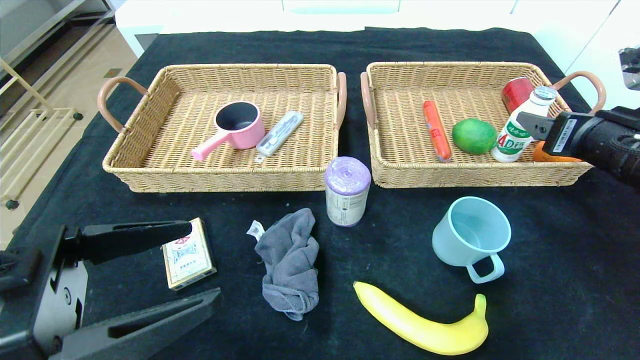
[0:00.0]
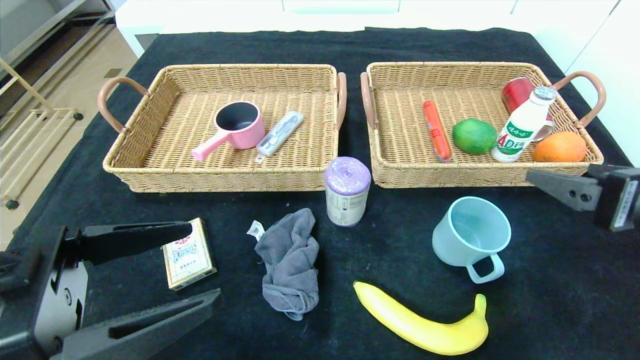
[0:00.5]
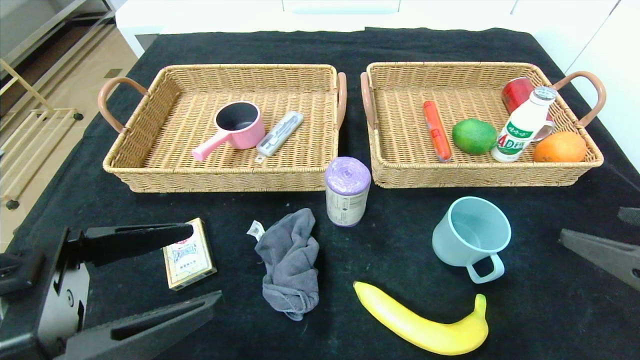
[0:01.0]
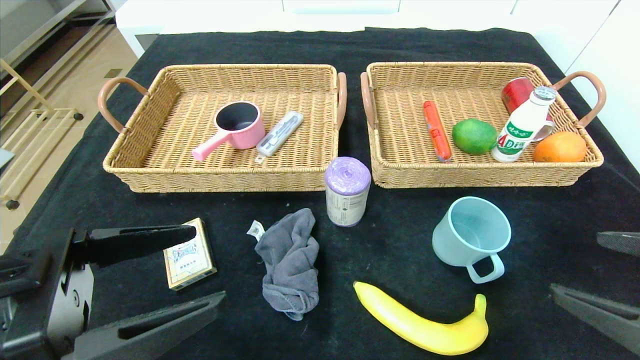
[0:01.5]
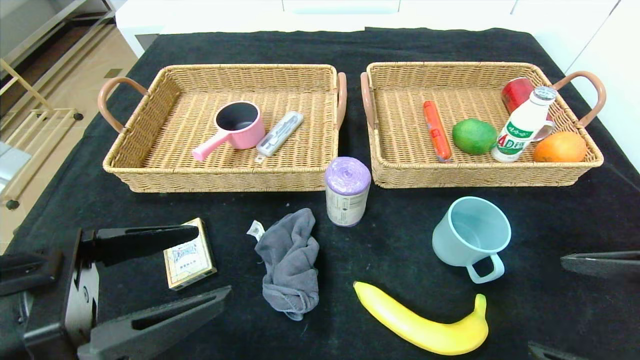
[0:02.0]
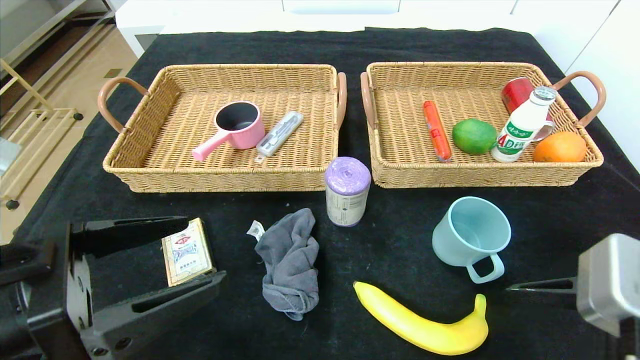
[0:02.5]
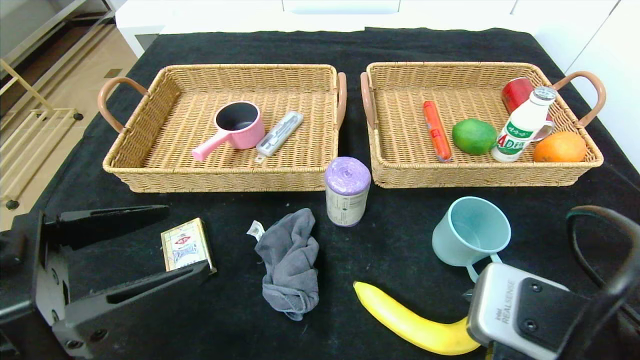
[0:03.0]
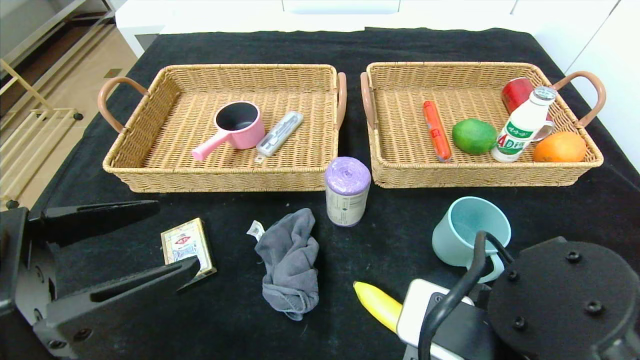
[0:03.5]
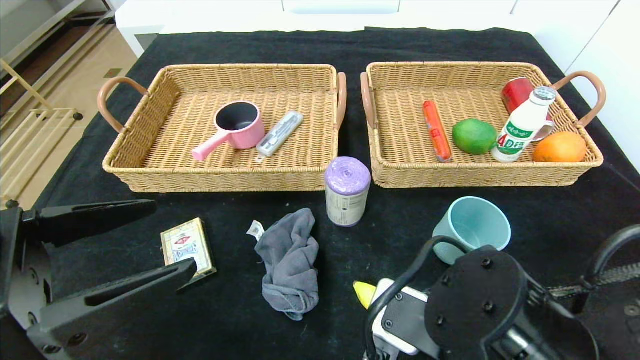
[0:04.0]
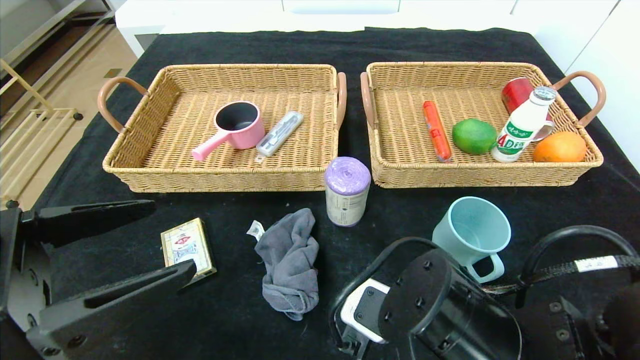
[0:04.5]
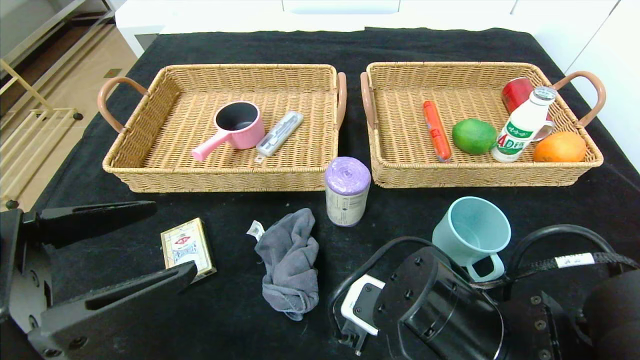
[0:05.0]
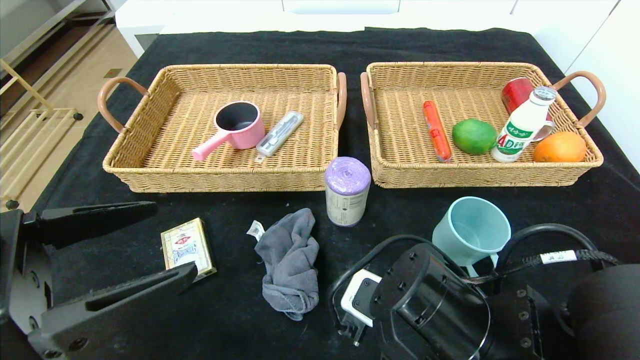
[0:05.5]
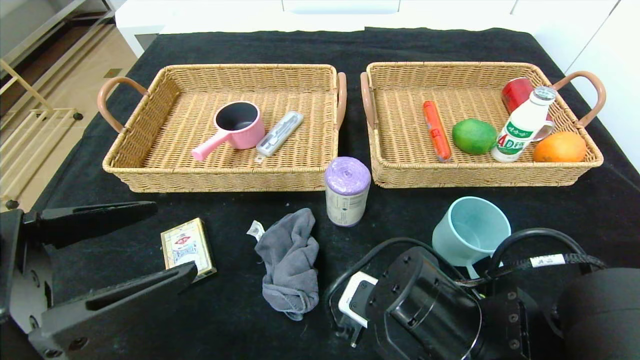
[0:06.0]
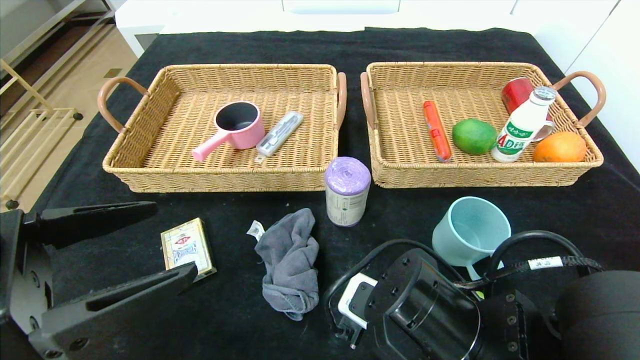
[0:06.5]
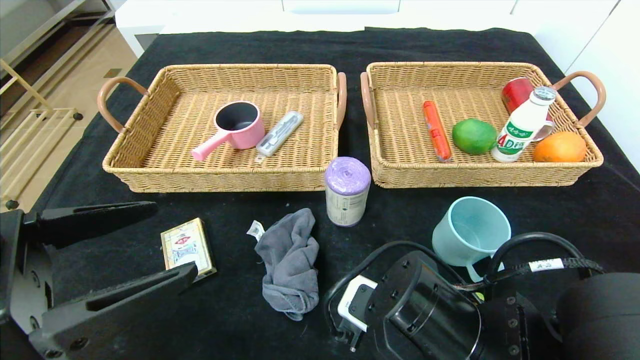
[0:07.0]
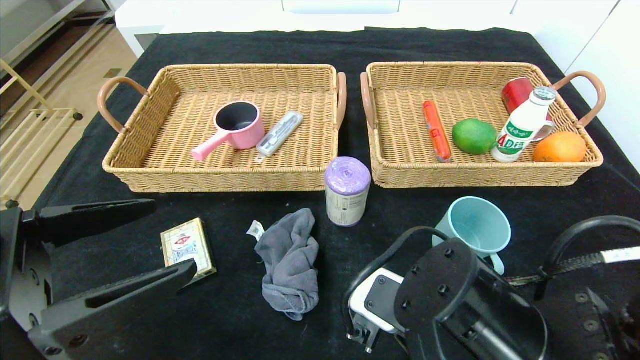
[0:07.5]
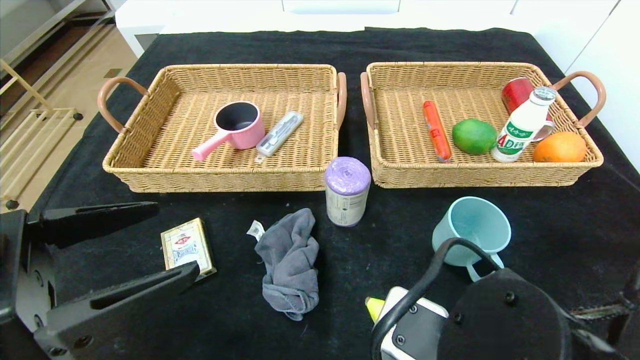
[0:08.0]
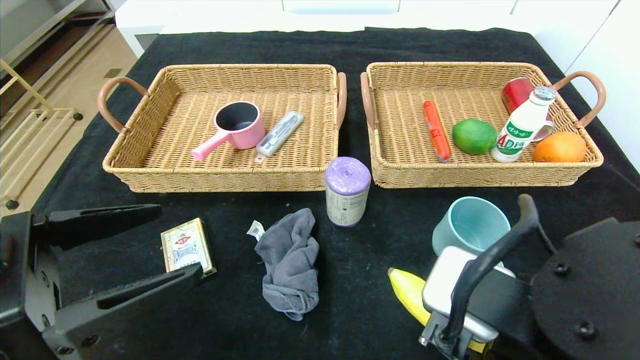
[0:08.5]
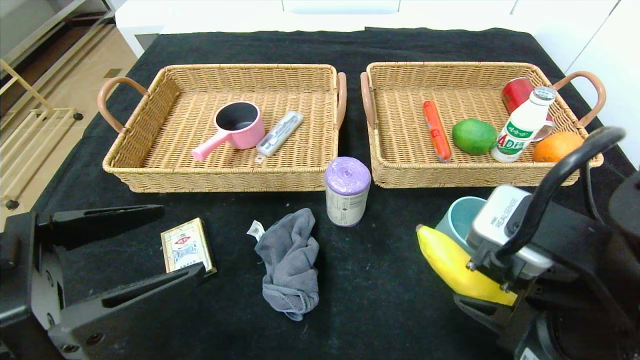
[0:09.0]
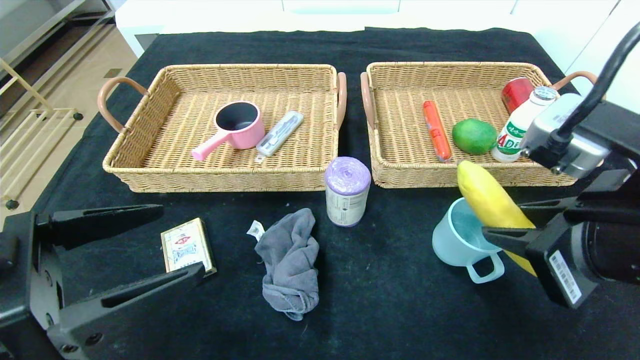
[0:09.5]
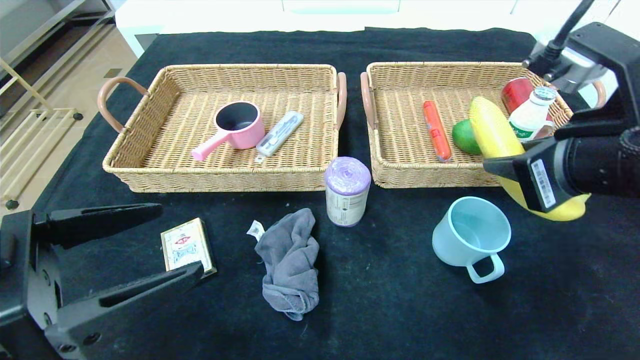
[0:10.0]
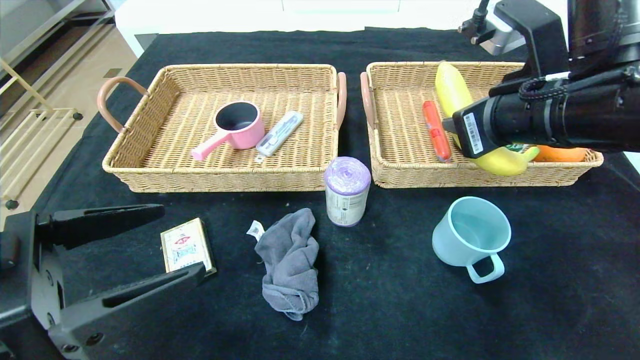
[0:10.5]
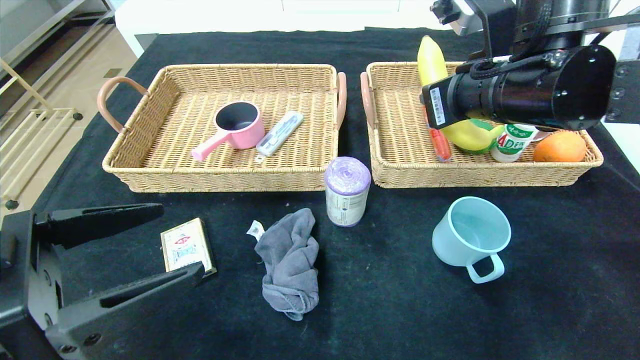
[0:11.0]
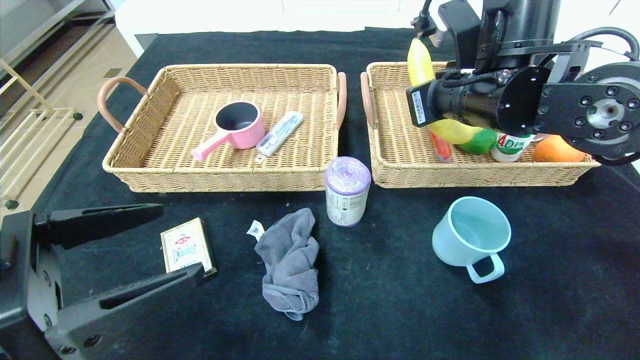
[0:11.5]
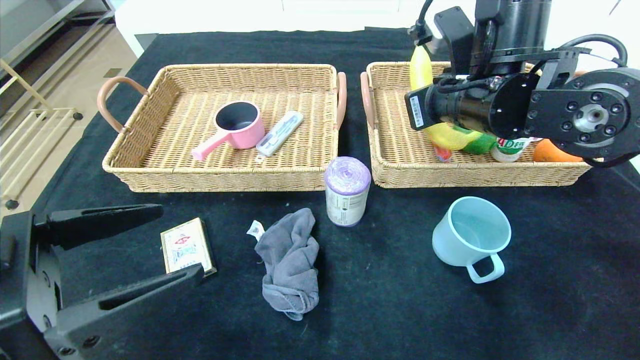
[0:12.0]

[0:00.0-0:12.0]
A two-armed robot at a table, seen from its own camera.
0:00.0 to 0:02.0: The right gripper is displaced backward by about 20 cm.
0:02.0 to 0:04.0: The right gripper travels to the left and downward by roughly 15 cm.
0:04.0 to 0:06.0: The grippers stay close to where they were, moving slightly.
0:06.0 to 0:08.0: The right gripper moves backward, some 5 cm, and closes up.
0:08.0 to 0:10.0: The right gripper goes approximately 15 cm upward, to the right and forward.
0:10.0 to 0:12.0: The right gripper heads forward and to the left, covering about 15 cm.

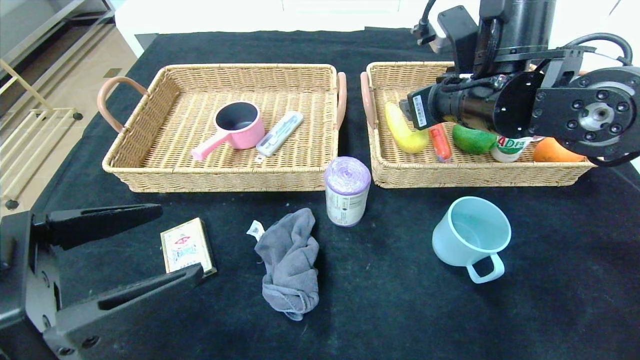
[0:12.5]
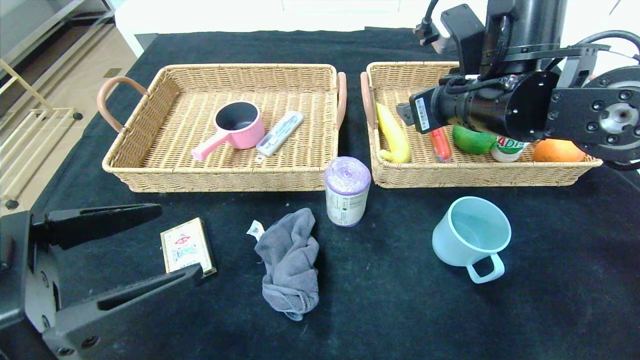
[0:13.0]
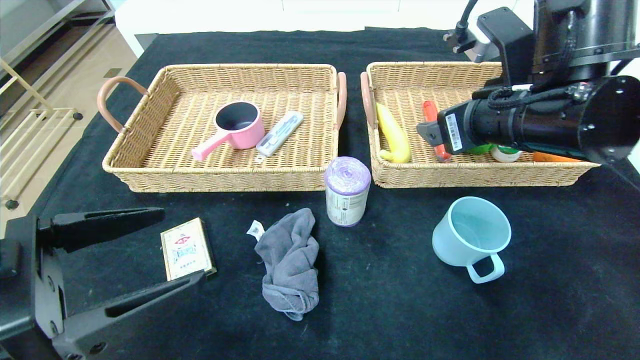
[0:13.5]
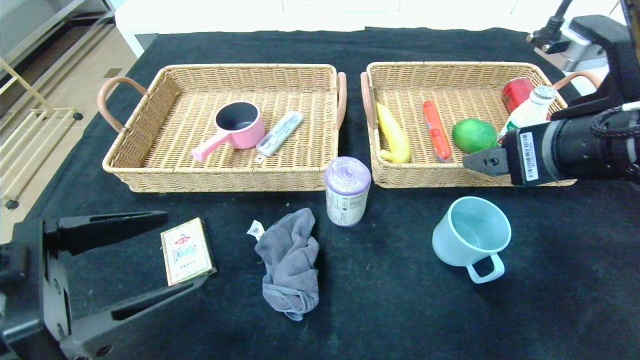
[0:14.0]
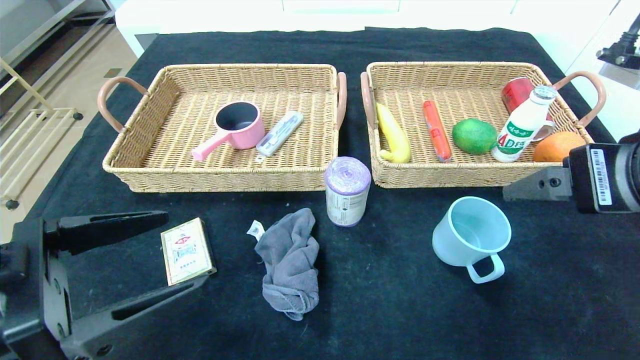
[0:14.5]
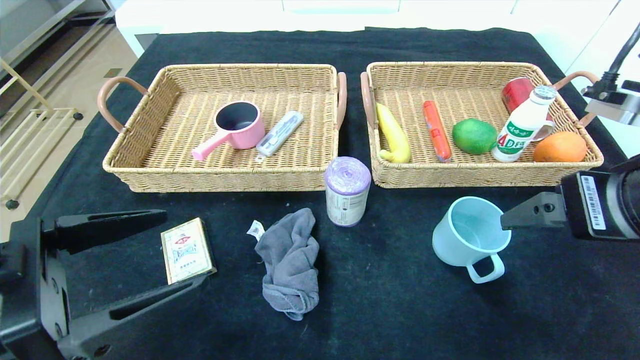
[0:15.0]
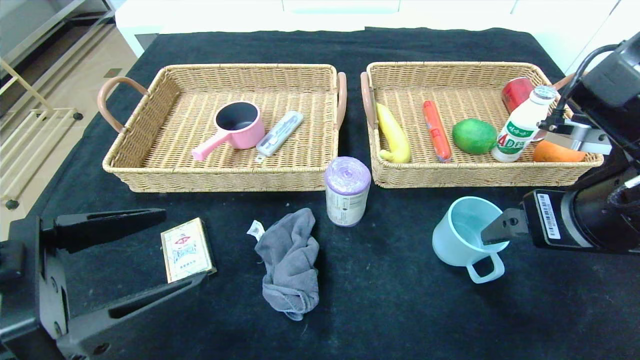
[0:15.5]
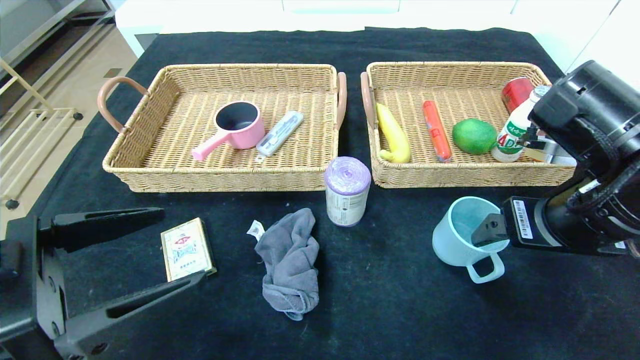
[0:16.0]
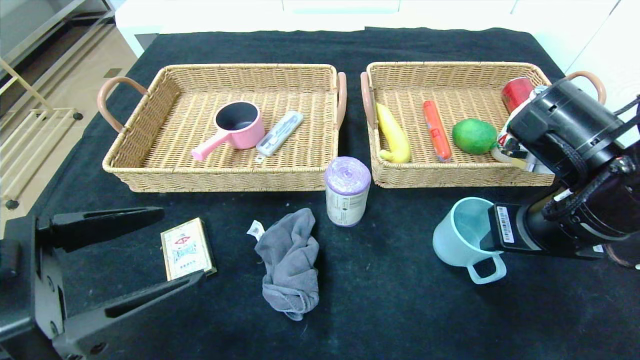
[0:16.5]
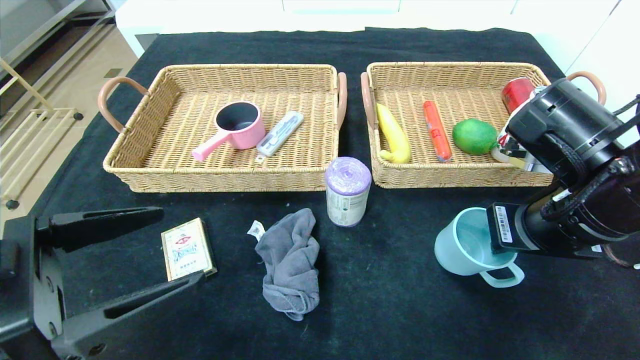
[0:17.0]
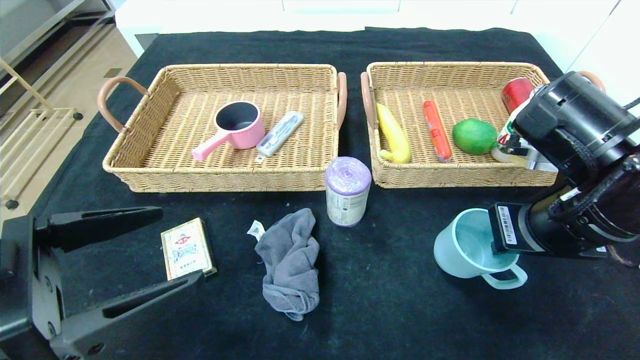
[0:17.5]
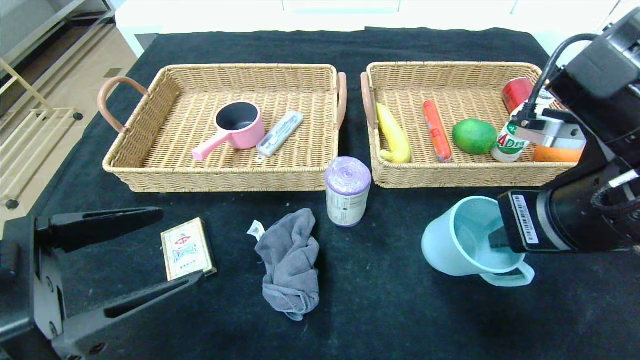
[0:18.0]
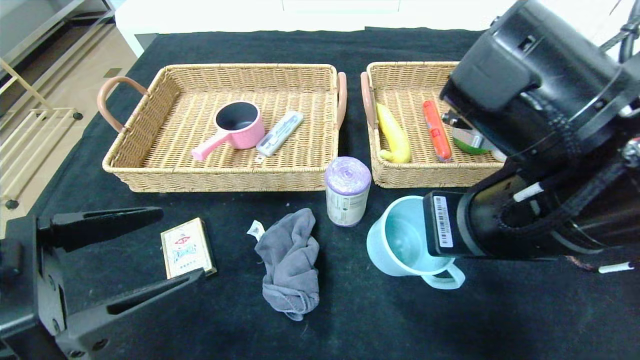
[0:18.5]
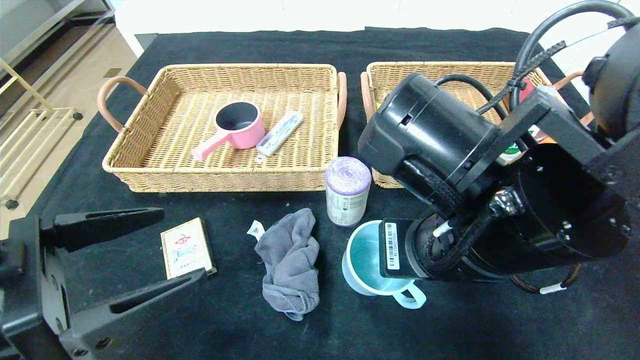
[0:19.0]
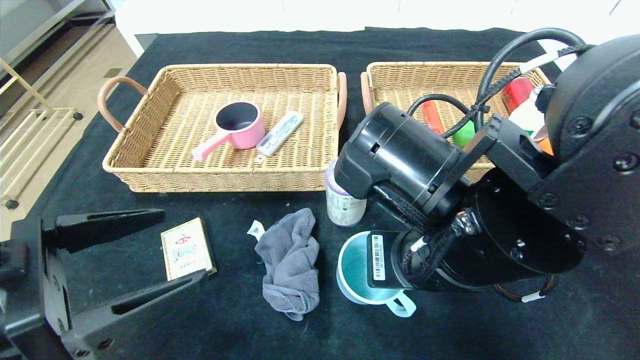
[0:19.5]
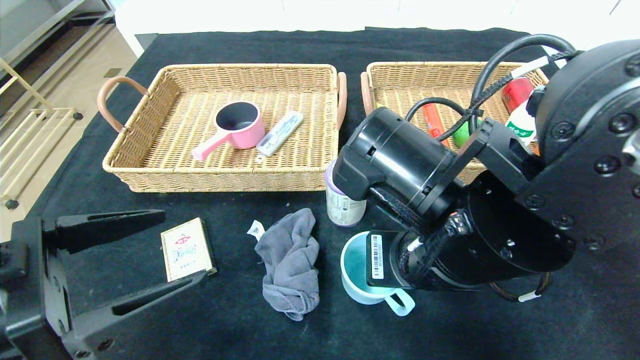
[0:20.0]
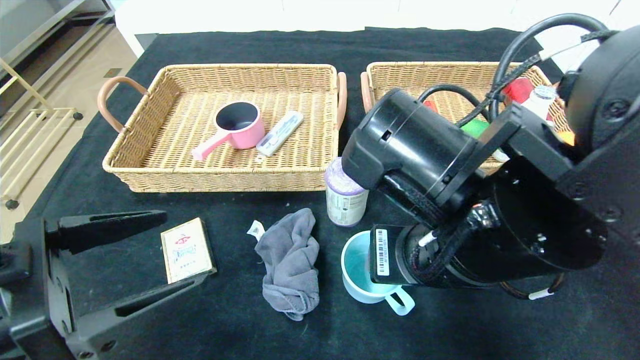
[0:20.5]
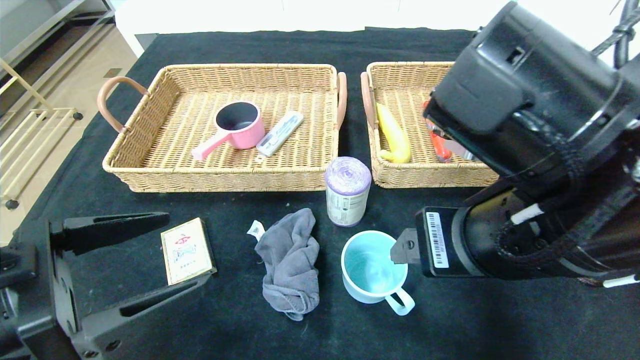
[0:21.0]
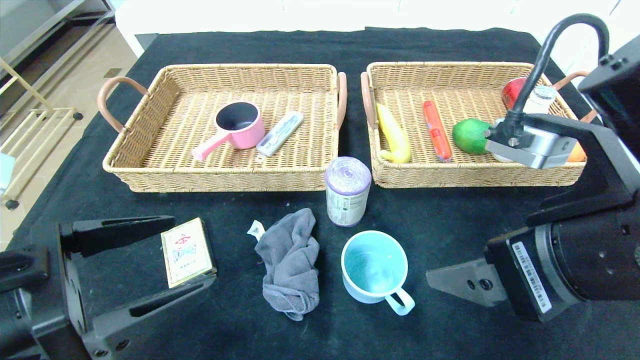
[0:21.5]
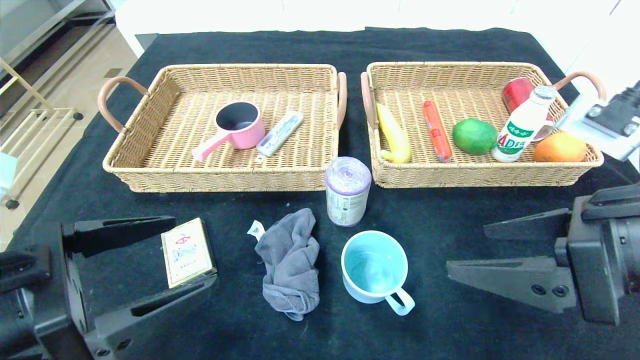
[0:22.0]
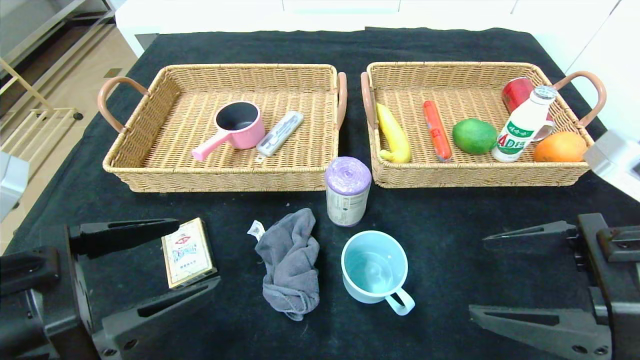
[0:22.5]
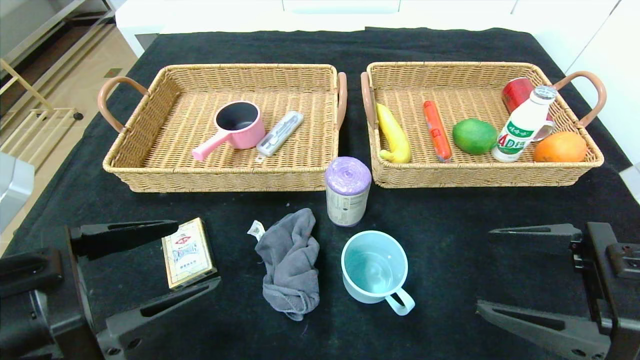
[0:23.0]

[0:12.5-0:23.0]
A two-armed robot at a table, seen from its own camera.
Step, 0:12.5 to 0:14.5: Pick up the banana and put it in the right basket.
Step, 0:15.0 to 0:22.0: Place the blue cup in the center of the table.
0:12.5 to 0:14.5: The right gripper travels backward and to the right by some 20 cm.
0:14.5 to 0:16.5: The right gripper travels downward and forward by approximately 10 cm, and closes its fingers.
0:16.5 to 0:19.0: The right gripper goes about 10 cm to the left, and closes up.
0:19.0 to 0:21.0: The right gripper opens up.
0:21.0 to 0:23.0: The right gripper is displaced to the right and downward by about 15 cm.
